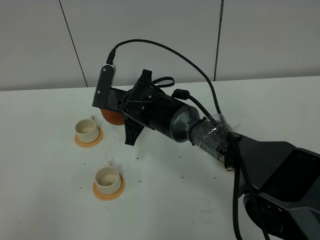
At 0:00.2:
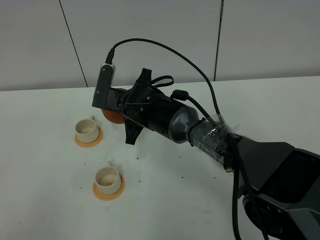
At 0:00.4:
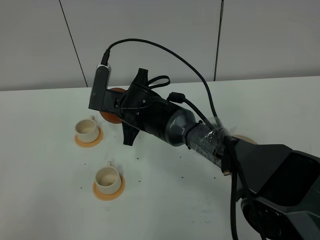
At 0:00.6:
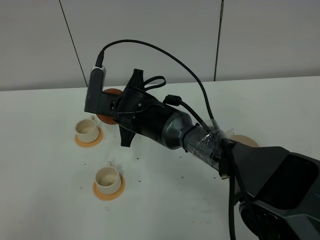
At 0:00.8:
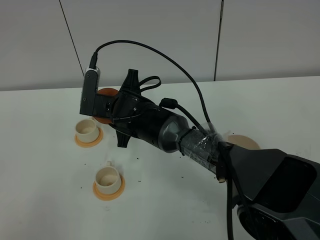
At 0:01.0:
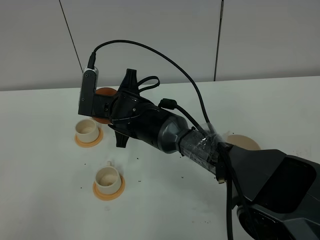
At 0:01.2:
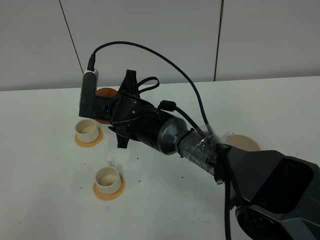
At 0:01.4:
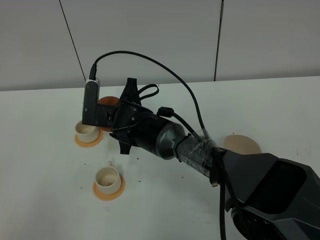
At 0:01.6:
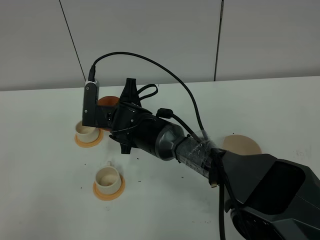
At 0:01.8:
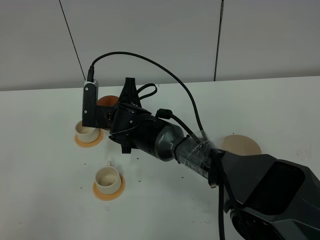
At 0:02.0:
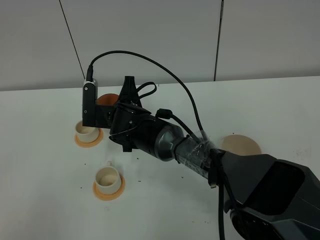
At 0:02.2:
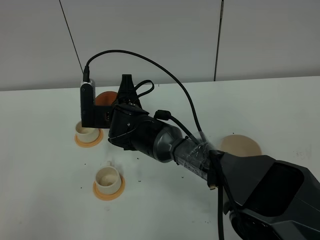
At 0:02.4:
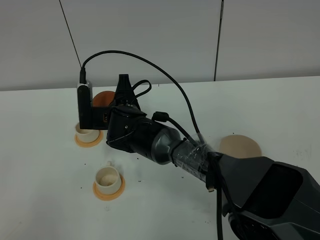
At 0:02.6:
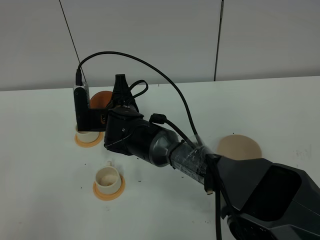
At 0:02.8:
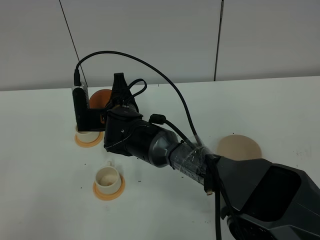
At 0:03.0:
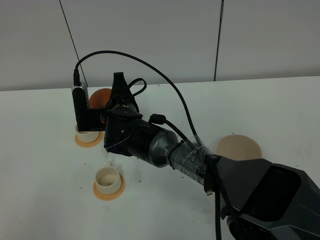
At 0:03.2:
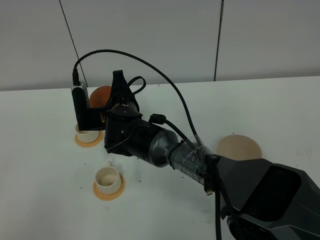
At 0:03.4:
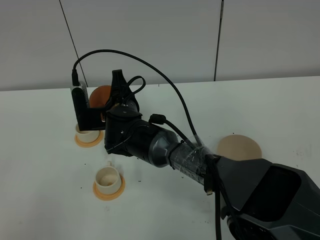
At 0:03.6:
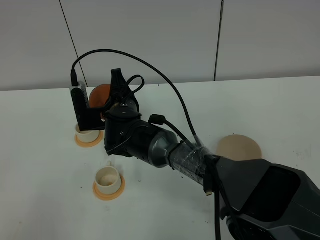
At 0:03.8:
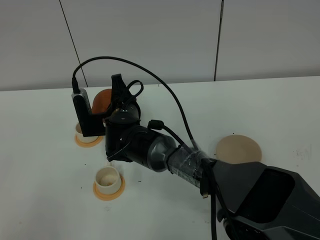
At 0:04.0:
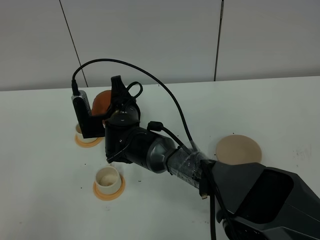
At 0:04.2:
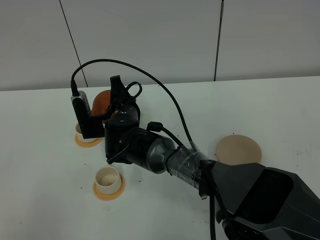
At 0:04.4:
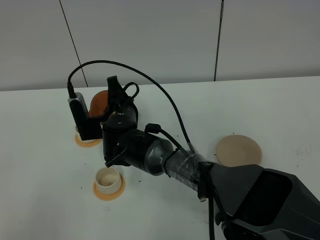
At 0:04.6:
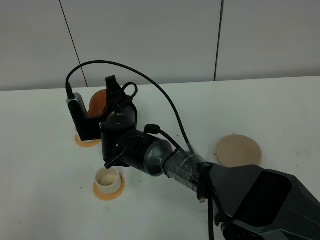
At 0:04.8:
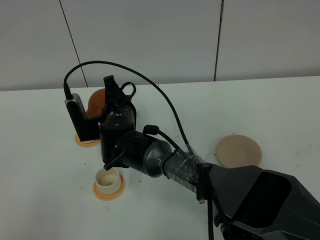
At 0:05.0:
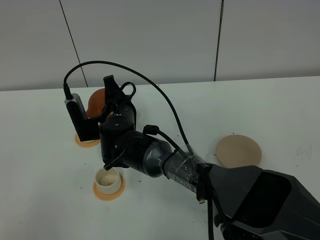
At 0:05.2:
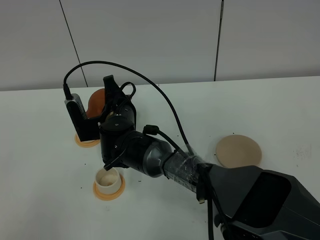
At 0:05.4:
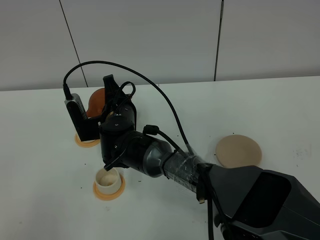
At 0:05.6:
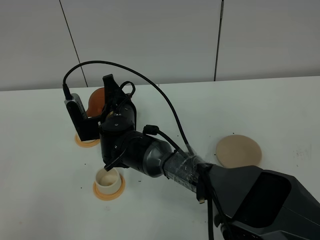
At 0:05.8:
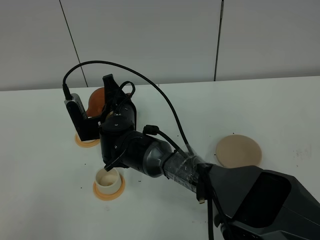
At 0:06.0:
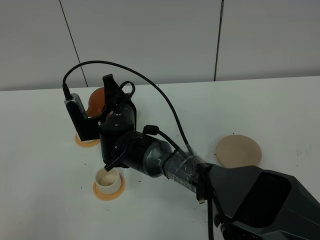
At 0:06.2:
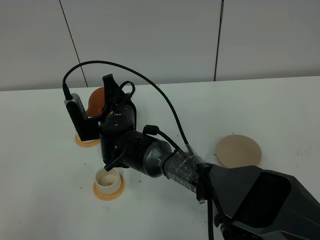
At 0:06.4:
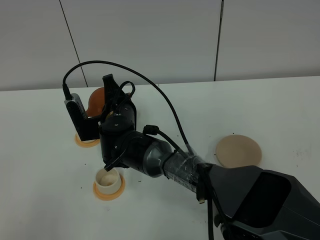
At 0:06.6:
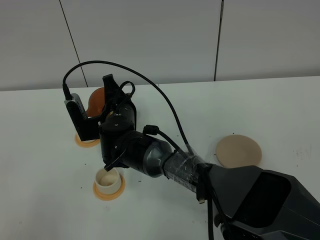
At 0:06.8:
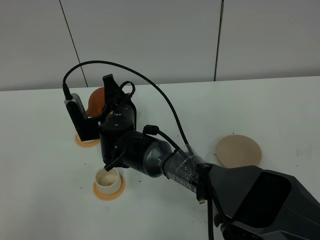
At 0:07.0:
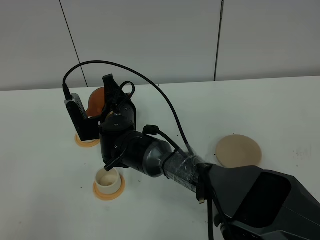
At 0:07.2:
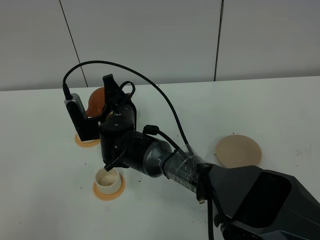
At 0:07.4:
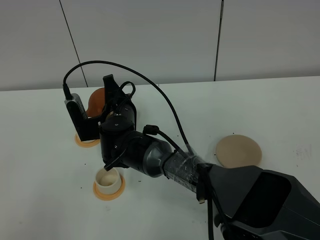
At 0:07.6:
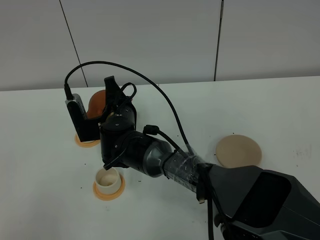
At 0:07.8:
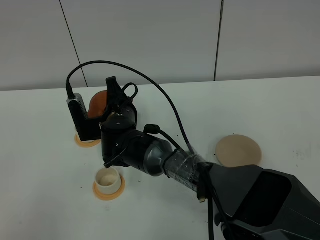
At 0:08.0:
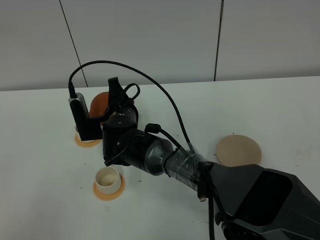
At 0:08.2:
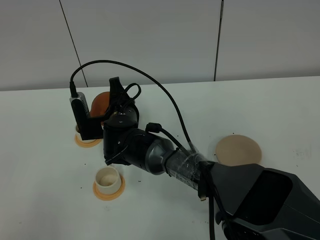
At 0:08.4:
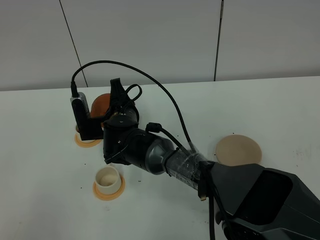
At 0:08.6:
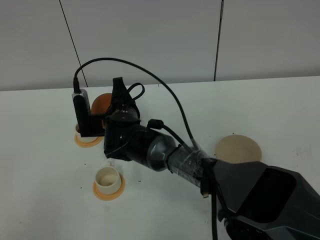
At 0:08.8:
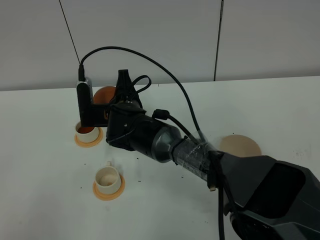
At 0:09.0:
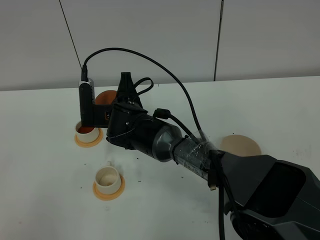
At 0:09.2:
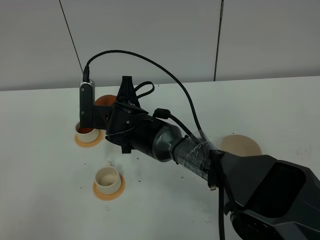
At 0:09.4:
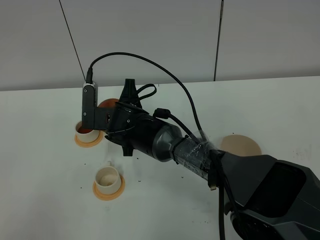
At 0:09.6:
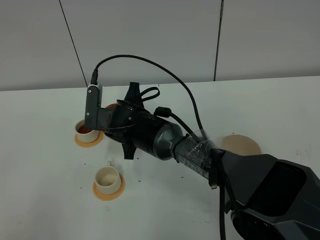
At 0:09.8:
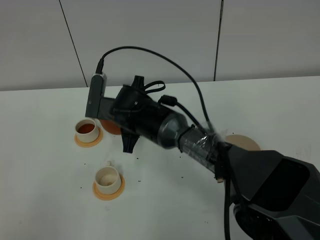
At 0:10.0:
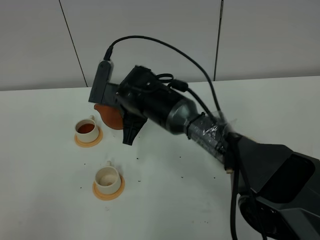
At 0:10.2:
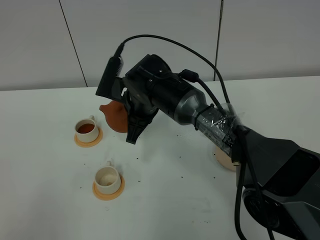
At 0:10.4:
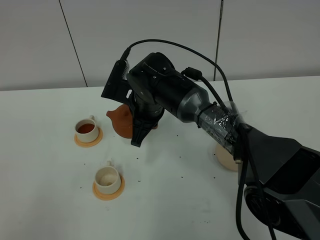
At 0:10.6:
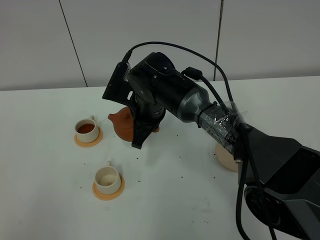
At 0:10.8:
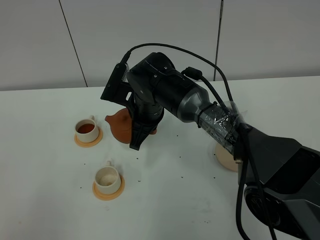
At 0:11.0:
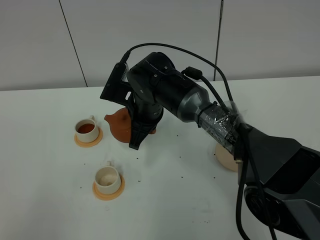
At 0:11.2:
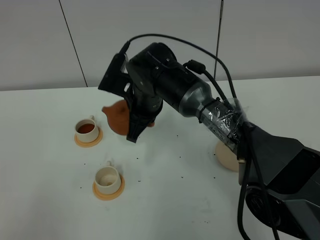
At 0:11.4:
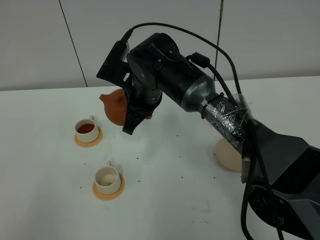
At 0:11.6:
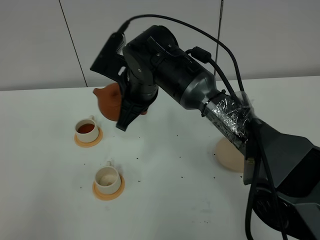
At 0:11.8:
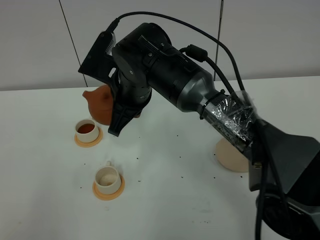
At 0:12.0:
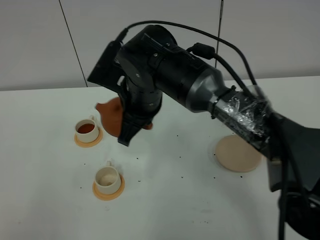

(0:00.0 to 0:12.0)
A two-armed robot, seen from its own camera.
Task of the whole recording: grasp the brown teapot and pour the tea into the two white teacups one by one, put the brown teapot back in its original place.
0:00.0 - 0:01.6: The grippers stay close to where they were, moving slightly.
0:01.6 - 0:03.0: The grippers make only small movements.
0:03.0 - 0:04.4: The grippers stay close to where they were, moving slightly.
0:04.4 - 0:07.6: Both grippers stay put.
0:07.6 - 0:09.0: The grippers move only a little.
0:09.0 - 0:10.4: The right gripper shifts by some 5 cm.
0:10.4 - 0:12.0: The right gripper moves upward and backward, some 10 cm.

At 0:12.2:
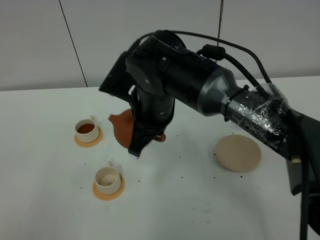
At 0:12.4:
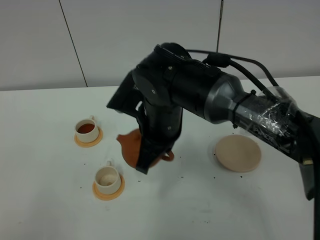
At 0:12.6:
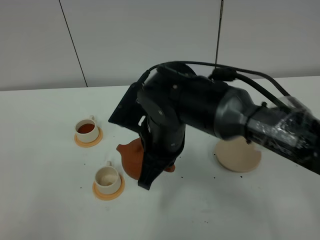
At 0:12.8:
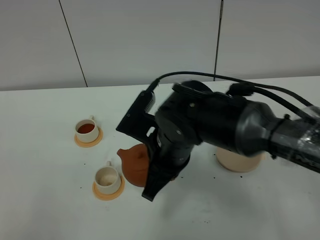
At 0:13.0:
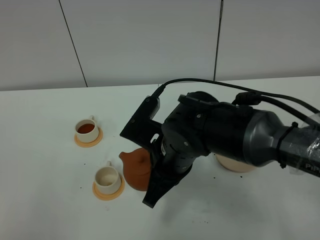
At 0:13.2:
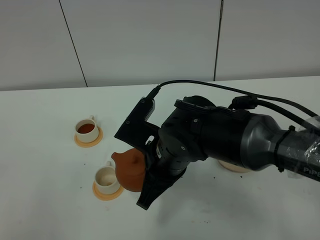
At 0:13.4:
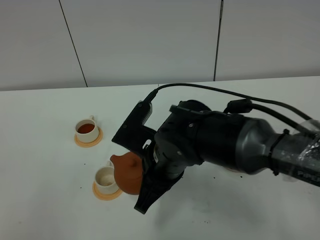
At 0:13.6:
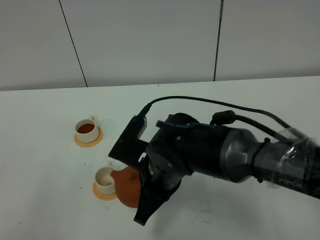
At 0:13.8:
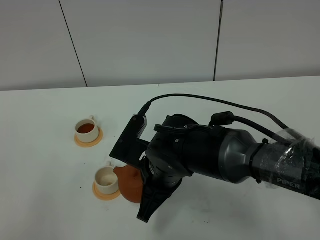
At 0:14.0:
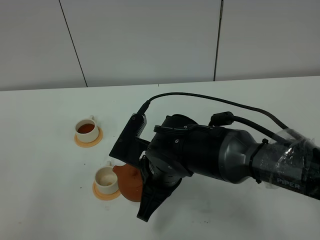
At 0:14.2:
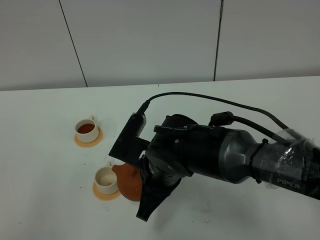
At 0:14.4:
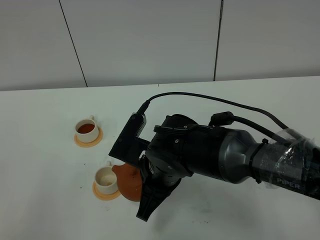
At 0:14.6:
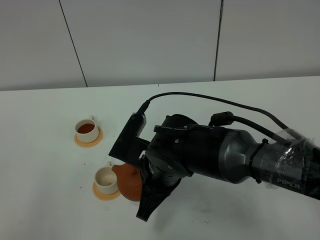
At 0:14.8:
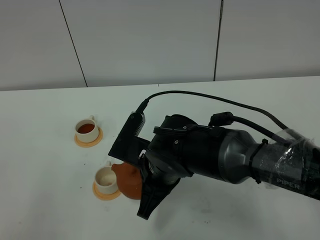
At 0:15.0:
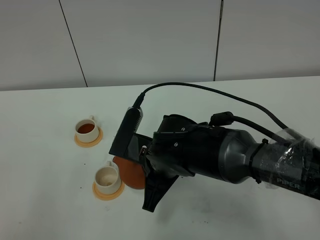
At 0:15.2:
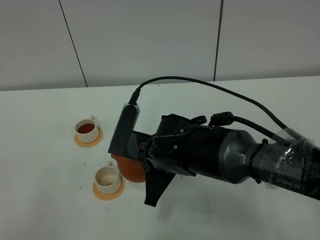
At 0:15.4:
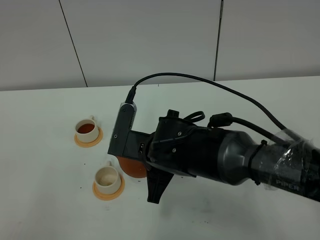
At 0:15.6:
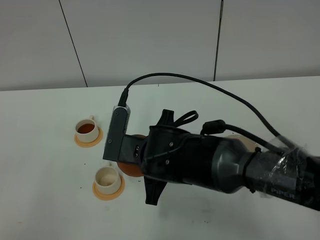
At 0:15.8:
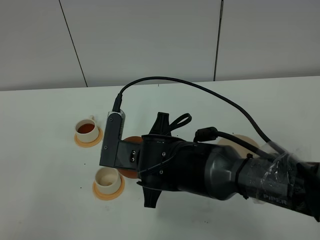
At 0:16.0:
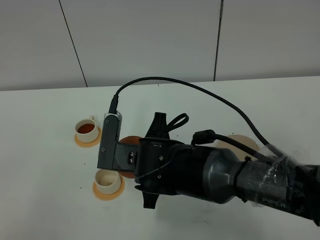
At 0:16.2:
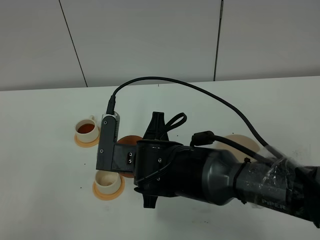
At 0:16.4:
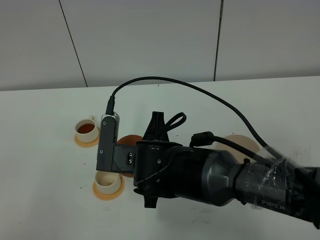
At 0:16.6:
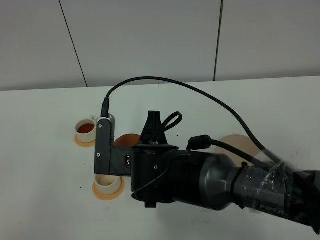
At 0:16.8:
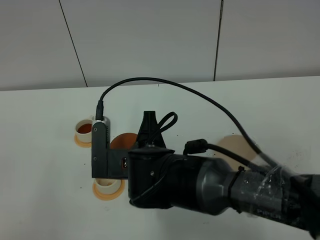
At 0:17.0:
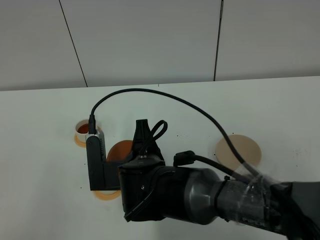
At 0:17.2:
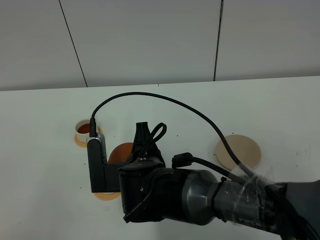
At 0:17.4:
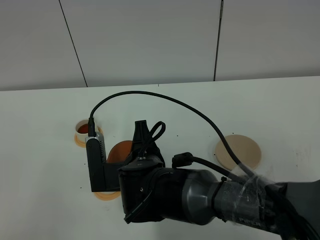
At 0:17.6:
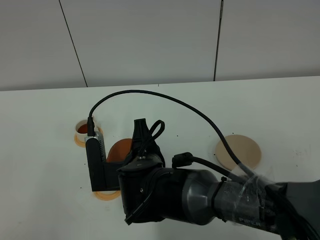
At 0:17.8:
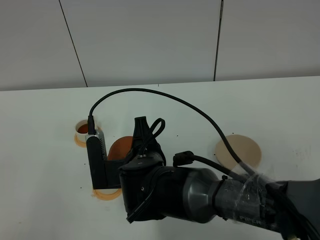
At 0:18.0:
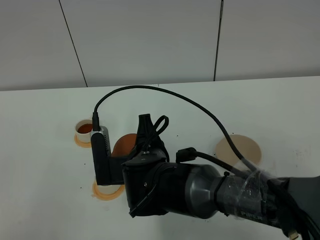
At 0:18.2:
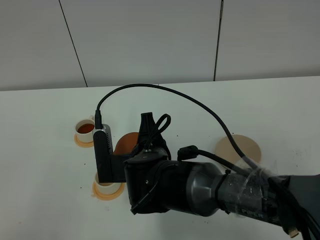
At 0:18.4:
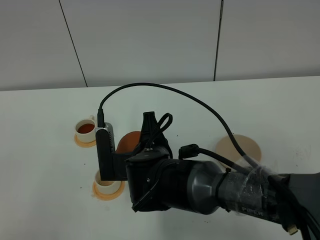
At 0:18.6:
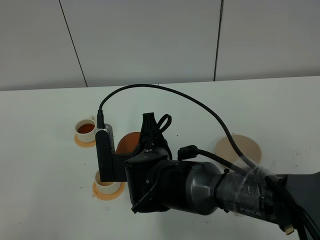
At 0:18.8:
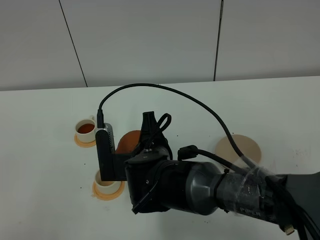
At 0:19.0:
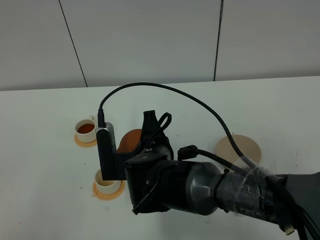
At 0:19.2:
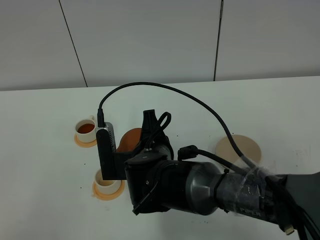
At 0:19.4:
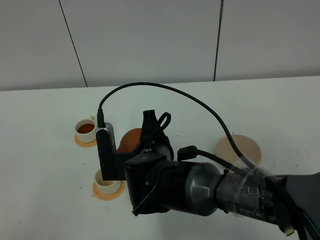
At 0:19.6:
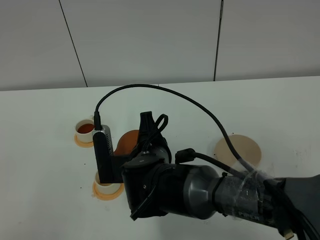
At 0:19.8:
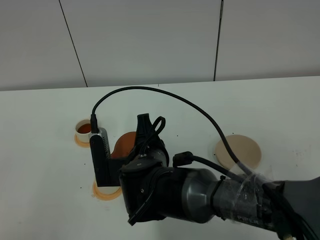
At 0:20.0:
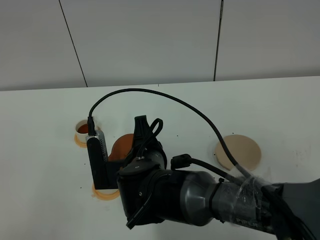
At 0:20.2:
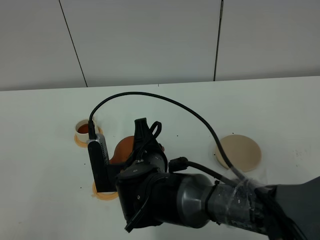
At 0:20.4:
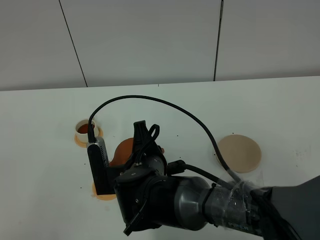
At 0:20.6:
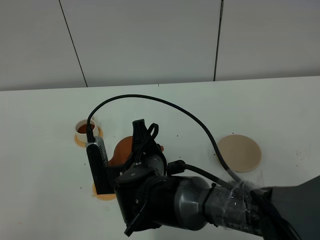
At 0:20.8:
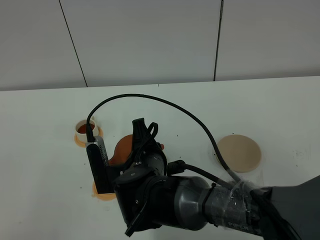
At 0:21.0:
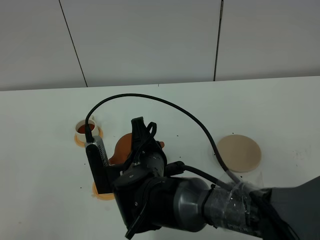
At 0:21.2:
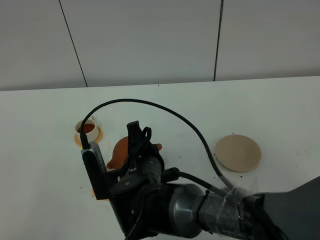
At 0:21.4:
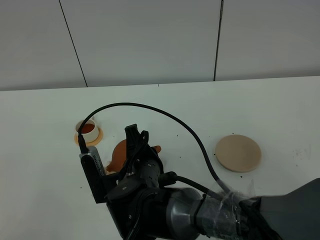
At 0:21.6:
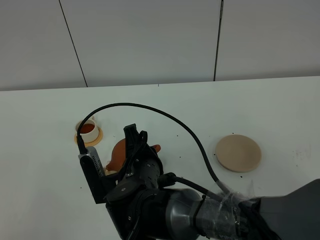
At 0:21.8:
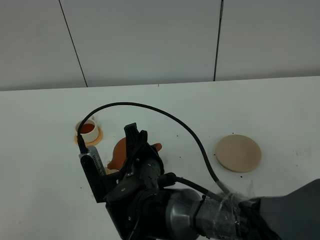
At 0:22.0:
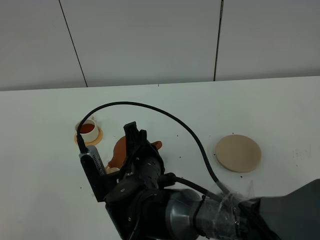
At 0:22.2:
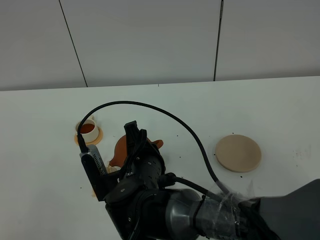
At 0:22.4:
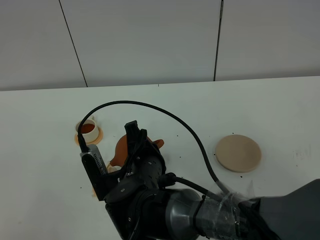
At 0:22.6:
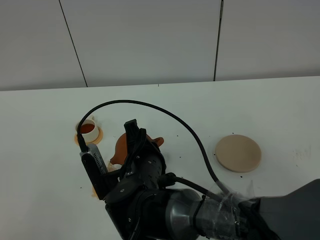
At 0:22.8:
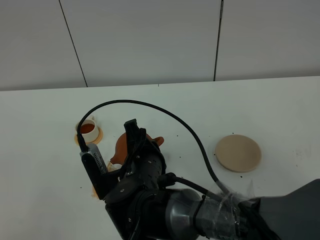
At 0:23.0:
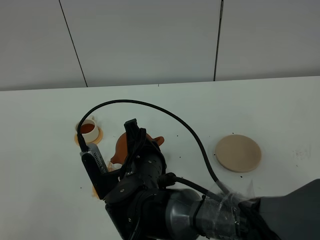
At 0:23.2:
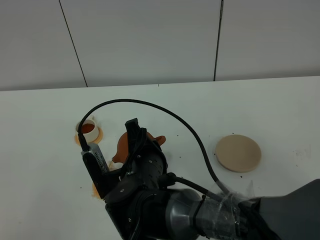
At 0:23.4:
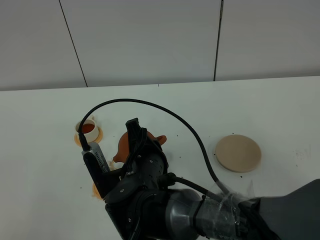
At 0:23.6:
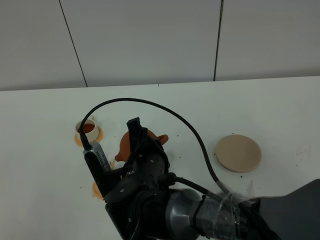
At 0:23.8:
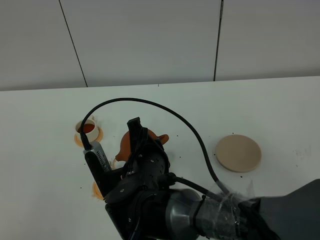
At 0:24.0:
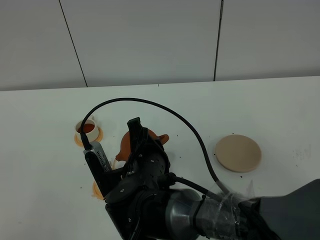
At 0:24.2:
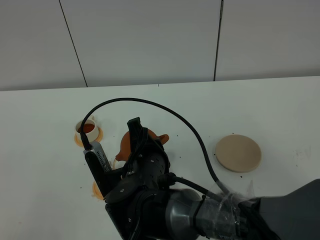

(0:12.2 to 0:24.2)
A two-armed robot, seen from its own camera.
Task of the whole recording: grasp the brown teapot and pour the tea into the two white teacups one by one, put the brown teapot back in its original place.
0:12.2 - 0:13.8: The right gripper travels backward and downward by approximately 10 cm.
0:13.8 - 0:15.2: The grippers move only a little.
0:15.2 - 0:16.6: The grippers make only small movements.
0:16.6 - 0:18.2: The grippers make only small movements.
0:18.2 - 0:19.8: Both grippers stay put.
0:19.8 - 0:22.6: There are only small adjustments of the grippers.
0:22.6 - 0:24.2: Both grippers stay about where they are.
